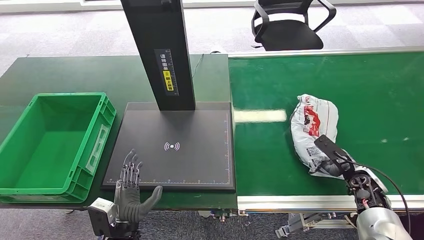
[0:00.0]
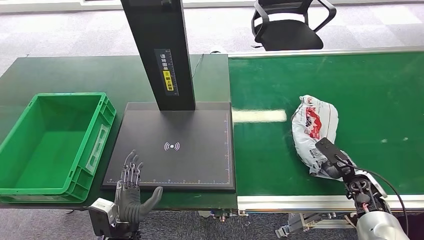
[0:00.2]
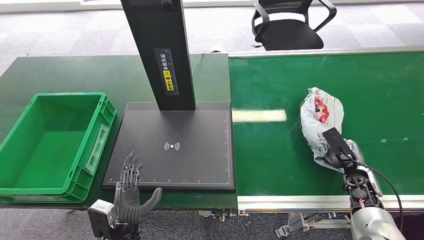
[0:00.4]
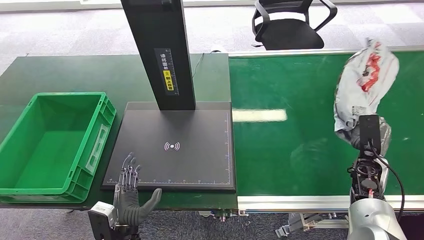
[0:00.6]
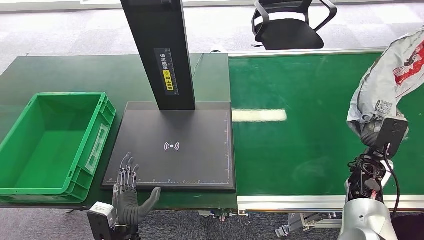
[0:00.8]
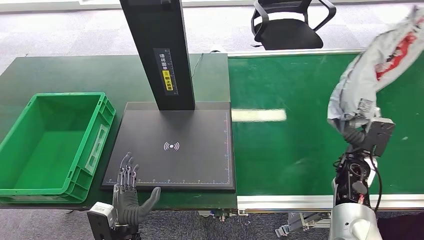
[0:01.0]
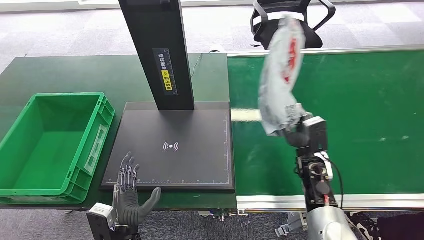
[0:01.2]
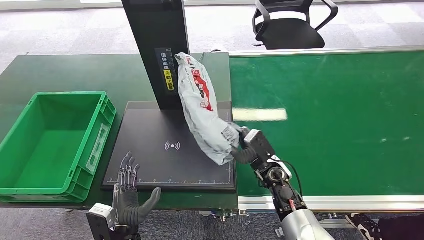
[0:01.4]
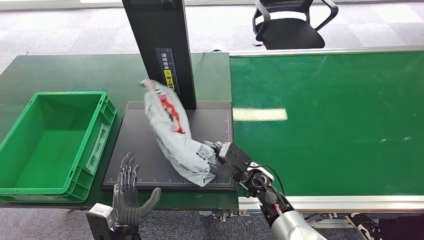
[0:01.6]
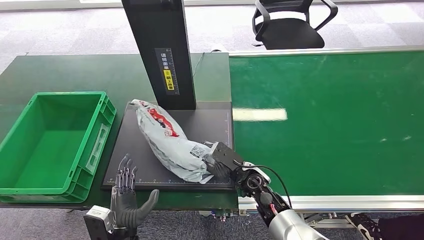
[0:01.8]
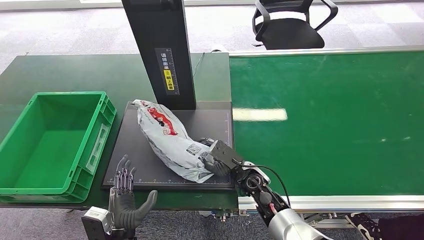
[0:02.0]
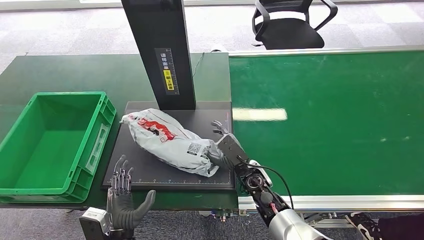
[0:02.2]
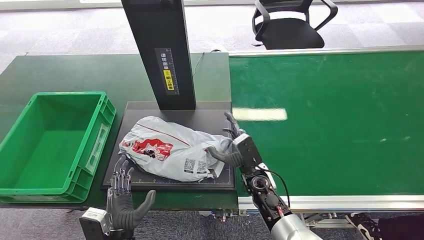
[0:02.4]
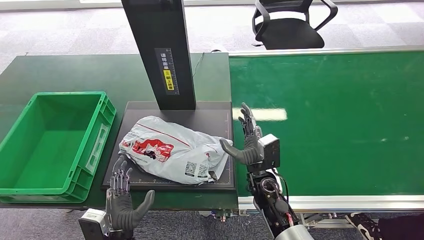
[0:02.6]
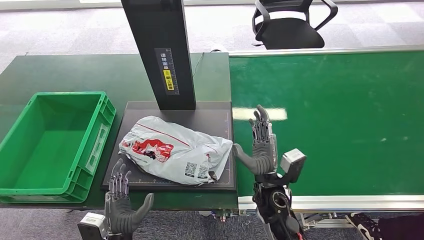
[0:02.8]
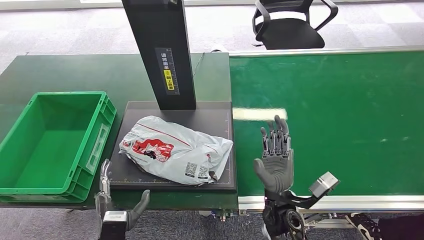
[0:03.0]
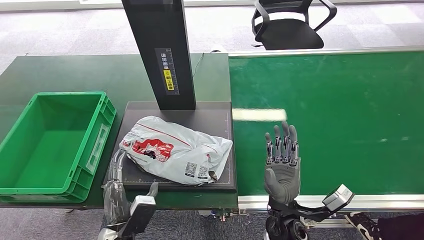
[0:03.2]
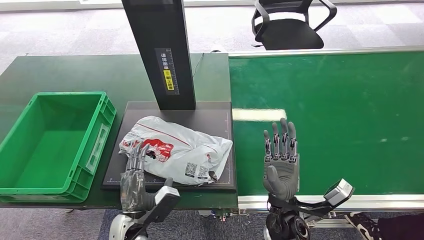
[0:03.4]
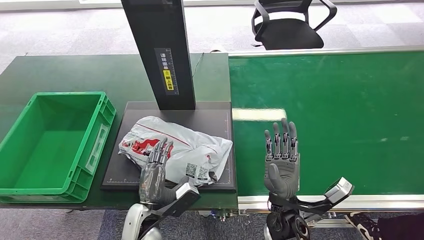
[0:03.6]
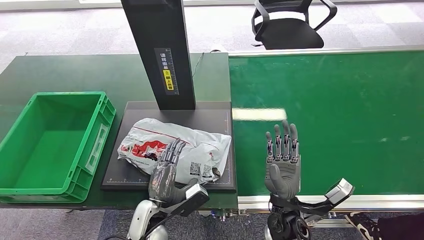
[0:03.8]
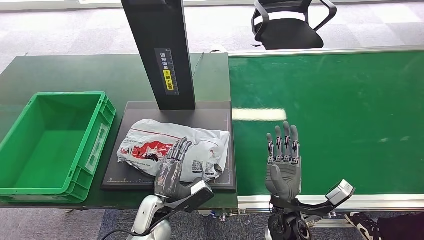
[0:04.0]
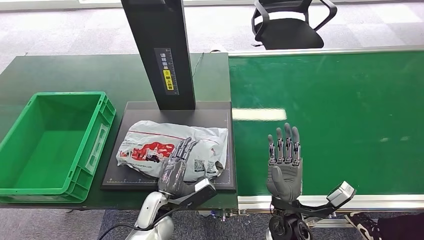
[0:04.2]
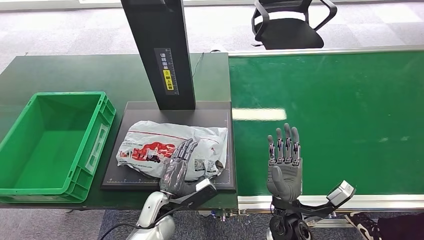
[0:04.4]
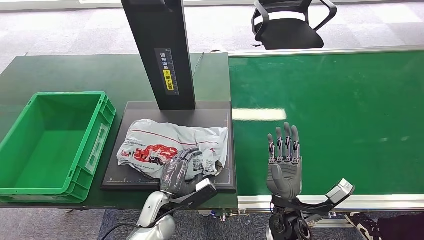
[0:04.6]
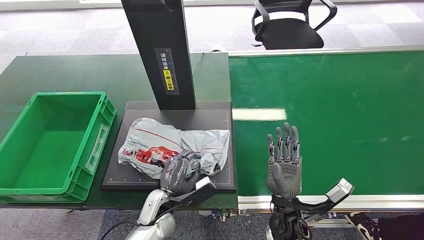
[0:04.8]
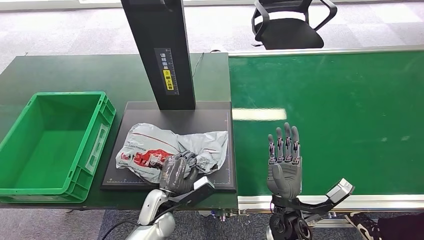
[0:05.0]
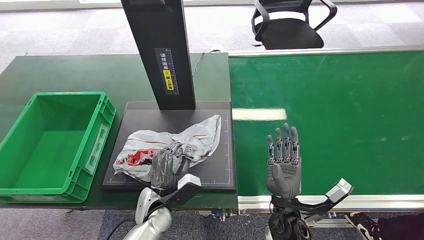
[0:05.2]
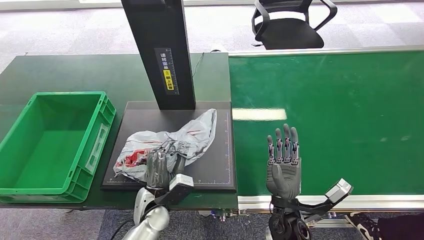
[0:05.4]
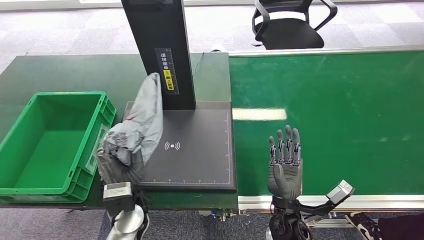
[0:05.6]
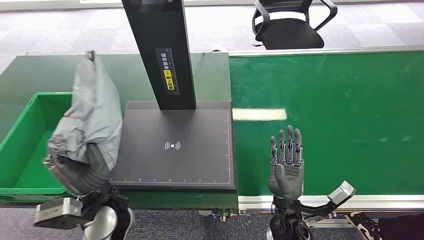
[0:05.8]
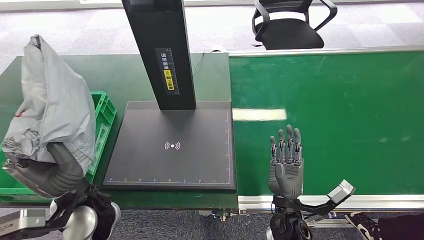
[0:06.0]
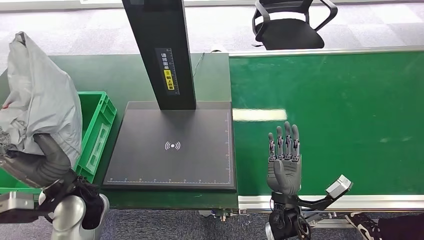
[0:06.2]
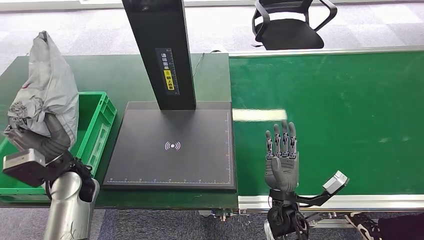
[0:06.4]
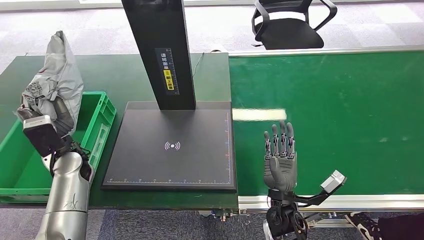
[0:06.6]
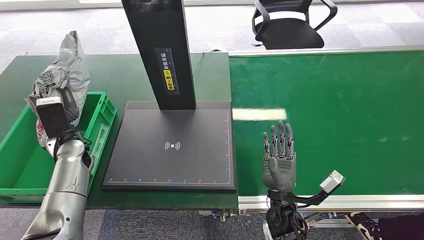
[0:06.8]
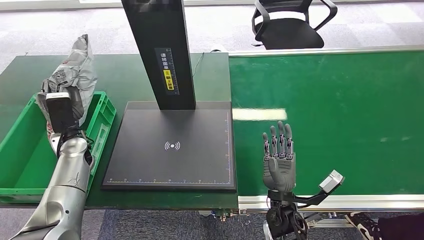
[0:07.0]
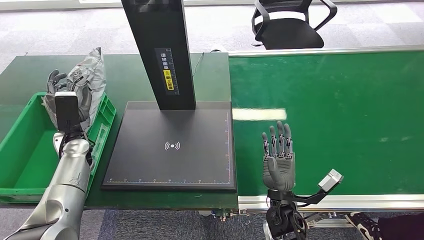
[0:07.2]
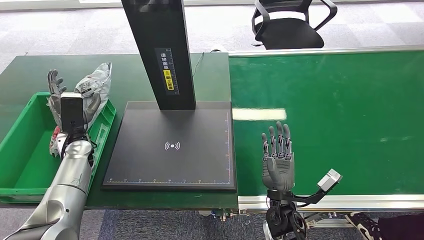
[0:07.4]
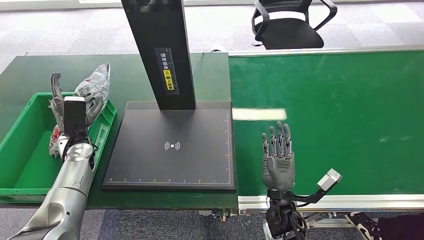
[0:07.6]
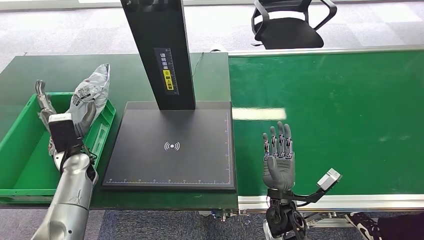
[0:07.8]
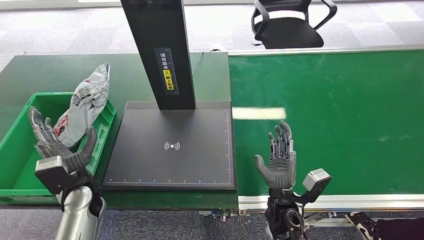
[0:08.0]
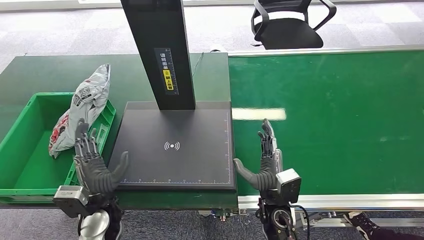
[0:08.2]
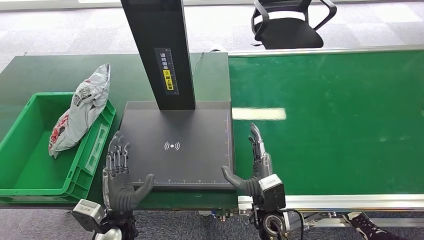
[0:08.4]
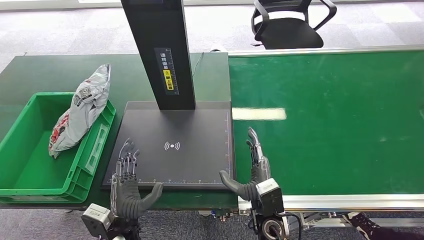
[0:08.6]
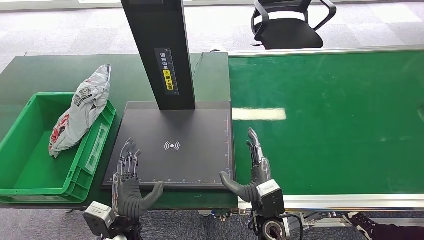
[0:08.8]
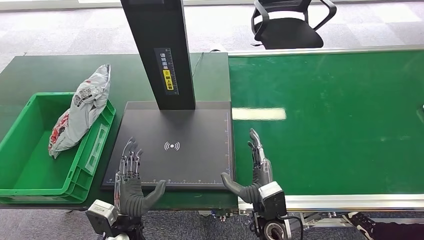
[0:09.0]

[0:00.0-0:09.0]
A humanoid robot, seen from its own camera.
Step, 0:01.4 to 0:03.2: Place the package onto the inbound machine.
Step, 0:03.4 to 0:05.8: Pick up the package from the inbound machine.
Step, 0:06.0 to 0:09.0: Place the package into the parcel locker.
0:01.6 to 0:03.0: The right hand shifts approximately 10 cm backward.
0:03.0 to 0:04.4: The left hand moves forward and to the right, some 15 cm.
0:06.0 to 0:07.6: The left hand travels forward and to the left by some 20 cm.
0:07.6 to 0:09.0: The left hand heads backward, to the right and downward, covering roughly 30 cm.
